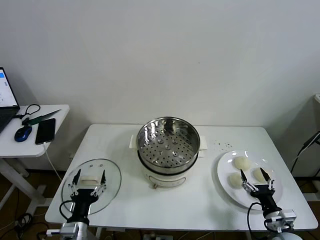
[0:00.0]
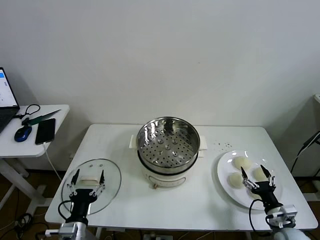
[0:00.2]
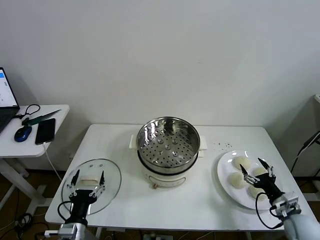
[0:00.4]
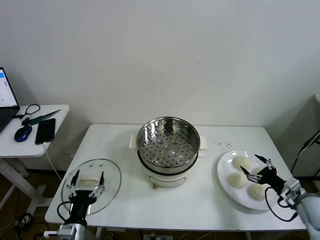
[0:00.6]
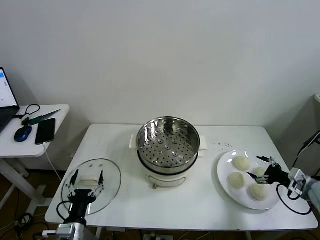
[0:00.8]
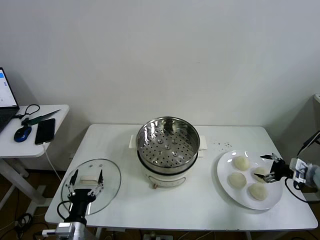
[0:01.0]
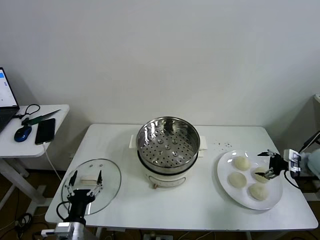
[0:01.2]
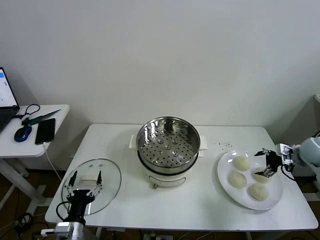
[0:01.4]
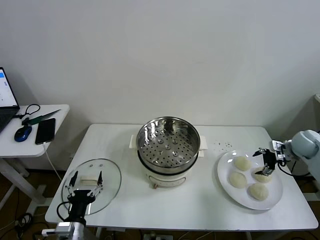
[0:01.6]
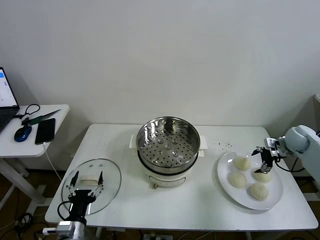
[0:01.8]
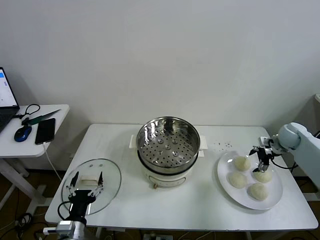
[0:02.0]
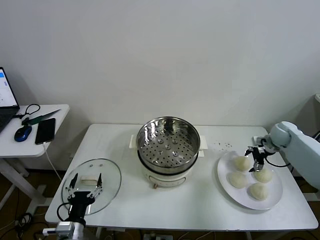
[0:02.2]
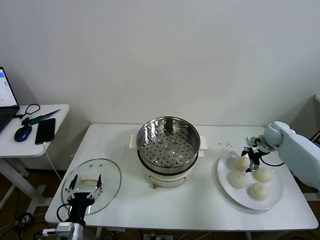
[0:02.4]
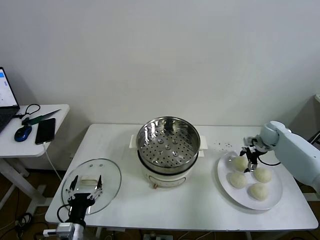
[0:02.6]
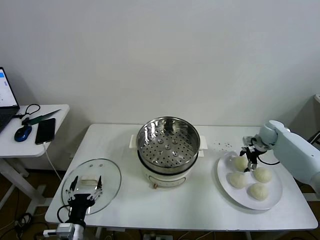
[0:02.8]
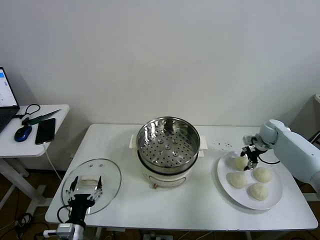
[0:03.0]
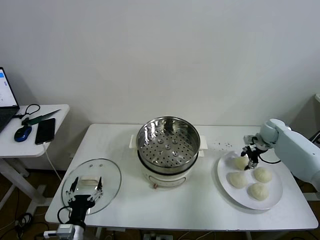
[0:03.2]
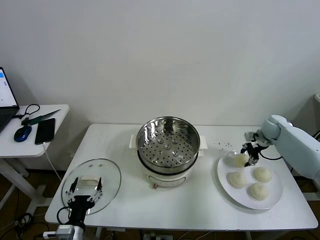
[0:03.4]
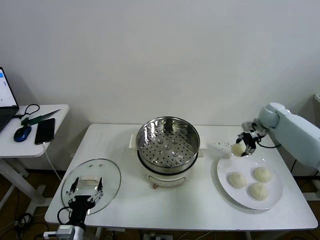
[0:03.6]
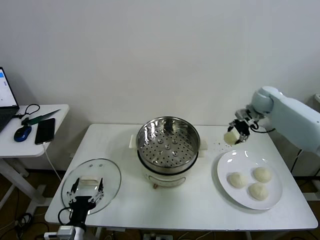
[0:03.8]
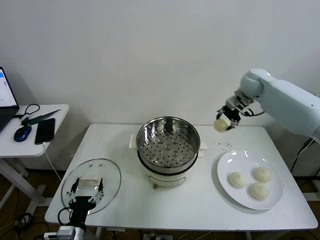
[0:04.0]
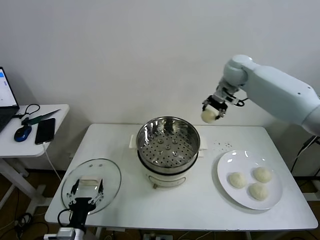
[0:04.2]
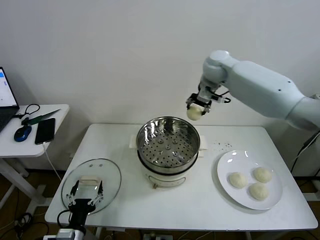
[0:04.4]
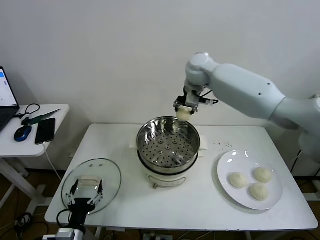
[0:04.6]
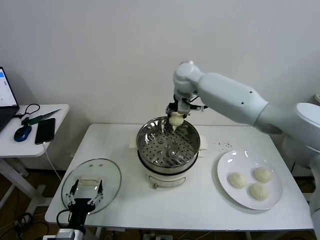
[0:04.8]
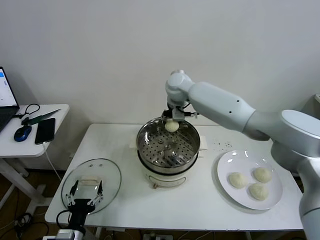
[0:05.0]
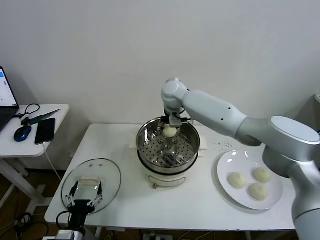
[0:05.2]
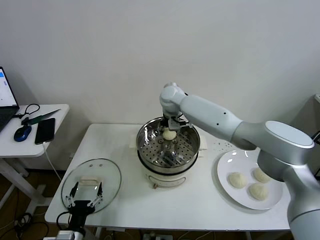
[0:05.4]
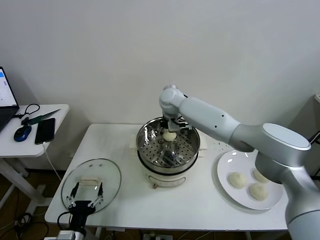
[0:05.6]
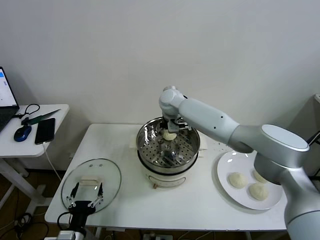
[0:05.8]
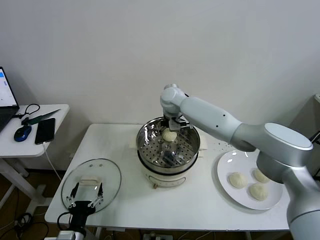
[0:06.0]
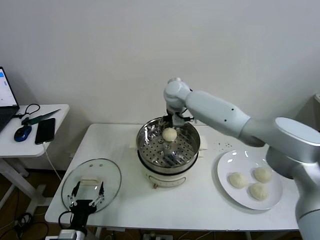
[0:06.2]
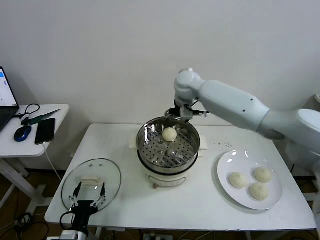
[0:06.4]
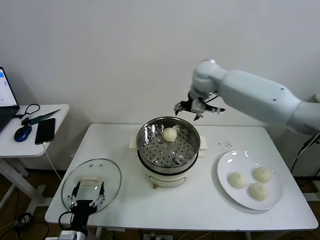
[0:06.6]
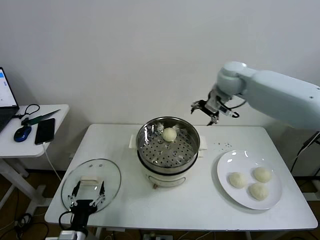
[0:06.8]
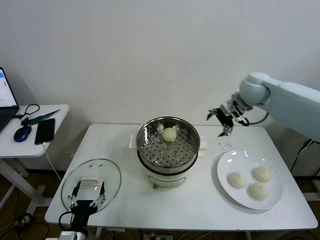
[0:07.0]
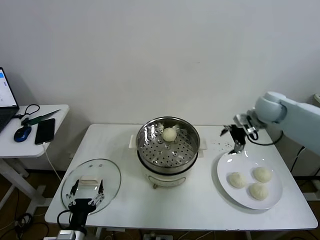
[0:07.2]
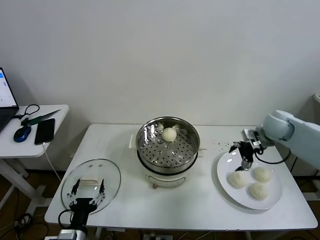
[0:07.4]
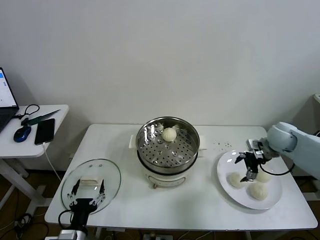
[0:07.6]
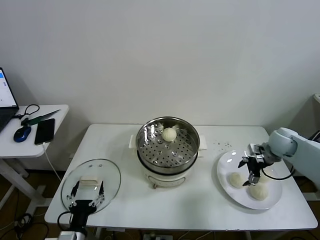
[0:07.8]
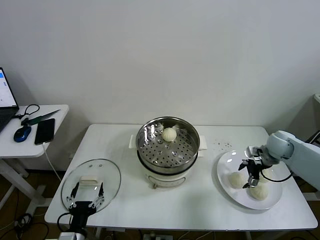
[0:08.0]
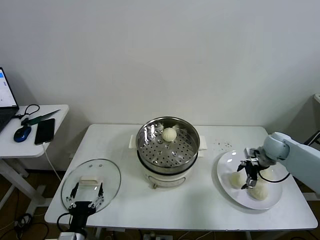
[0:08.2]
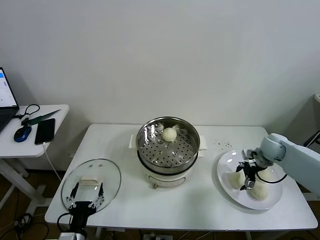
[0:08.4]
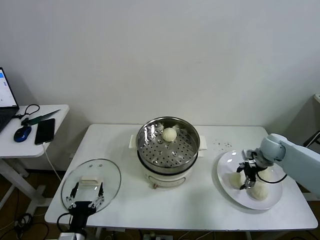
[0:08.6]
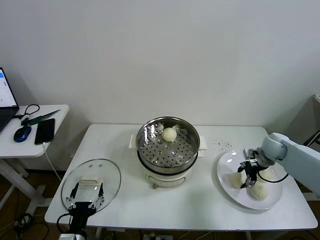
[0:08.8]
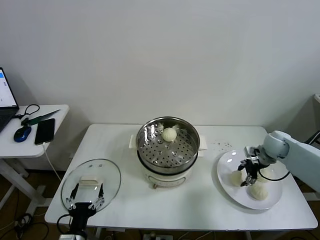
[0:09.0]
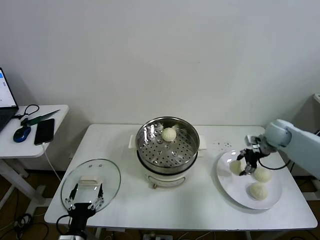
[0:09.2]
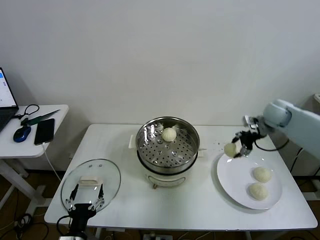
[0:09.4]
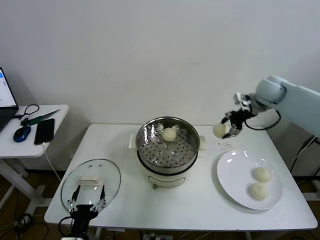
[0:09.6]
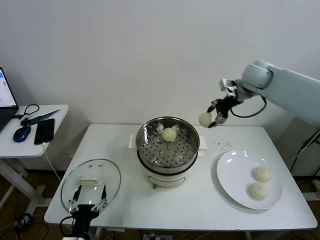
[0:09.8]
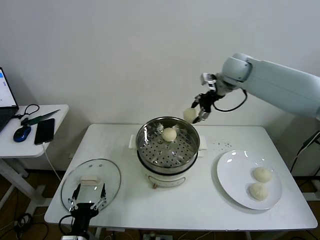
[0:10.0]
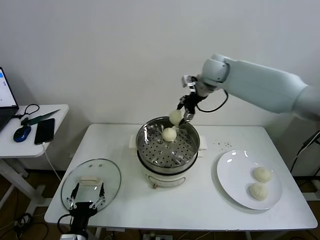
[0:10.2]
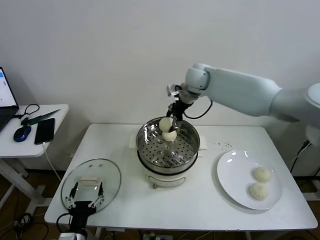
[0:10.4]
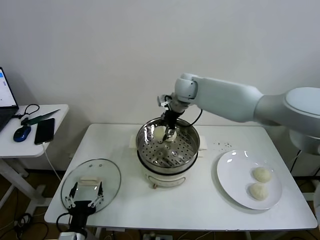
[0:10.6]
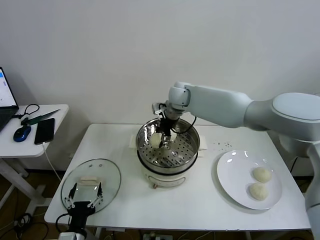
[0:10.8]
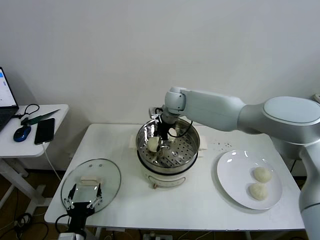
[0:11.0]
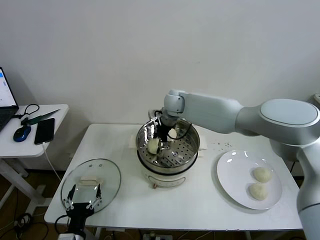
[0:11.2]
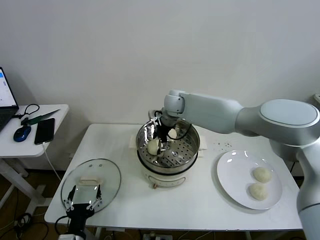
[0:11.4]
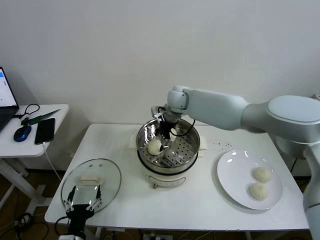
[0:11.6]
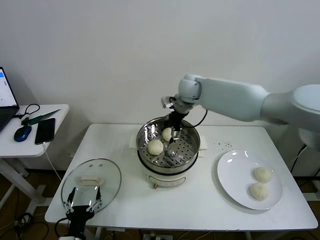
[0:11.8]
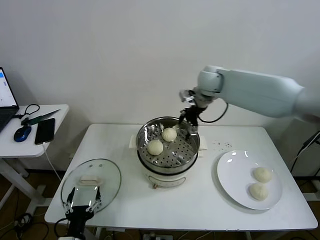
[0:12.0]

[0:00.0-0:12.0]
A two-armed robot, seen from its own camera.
Task of the whole recording: take steamed baozi put them in steamer then cover it.
Step, 0.0 to 3.0 s: Grasp the baozi in the plate with right gripper.
Step, 3.2 to 5.8 s: Place the baozi on the steamer with right gripper.
Step, 6.0 to 8.6 s: Grasp the baozi in the plate with right gripper.
Step, 8.8 to 11.4 s: Place the baozi on the steamer with right gripper.
1.6 to 3.0 s: The right gripper shifts roughly 10 cm forward and to the left, and closes.
3.0 to 4.4 s: The right gripper heads to the left and upward, covering some 40 cm.
4.4 to 6.0 s: The right gripper is displaced downward and to the left by roughly 15 cm, and opens up.
6.0 to 7.6 s: The right gripper shifts approximately 40 cm to the right.
7.6 to 9.0 s: The right gripper closes up.
9.0 to 10.4 s: The right gripper heads to the left and upward, covering about 35 cm.
10.4 to 12.0 s: The right gripper goes some 10 cm to the right, and opens.

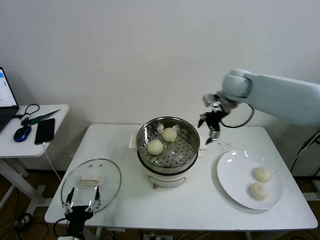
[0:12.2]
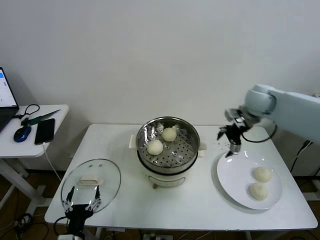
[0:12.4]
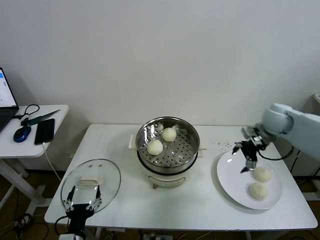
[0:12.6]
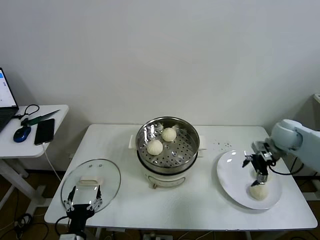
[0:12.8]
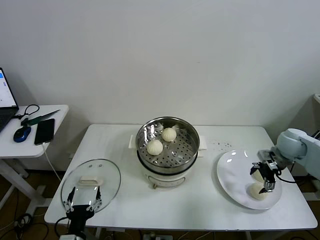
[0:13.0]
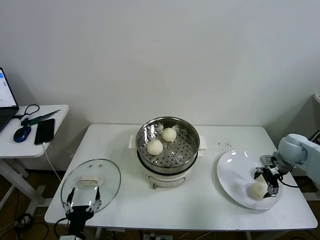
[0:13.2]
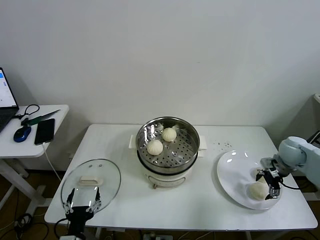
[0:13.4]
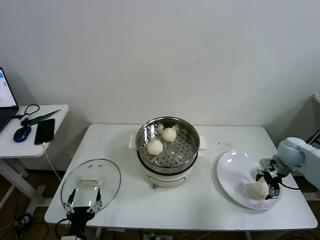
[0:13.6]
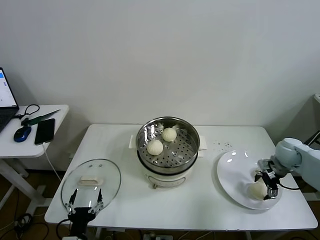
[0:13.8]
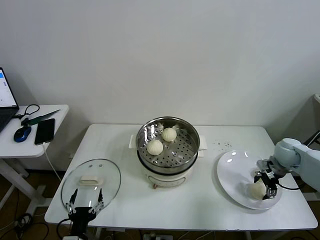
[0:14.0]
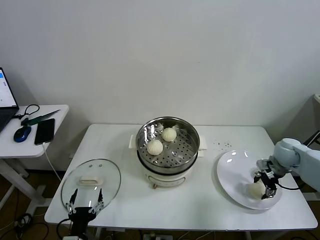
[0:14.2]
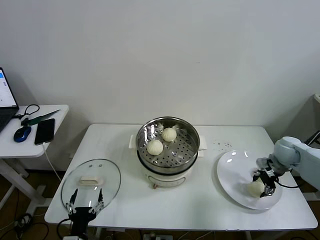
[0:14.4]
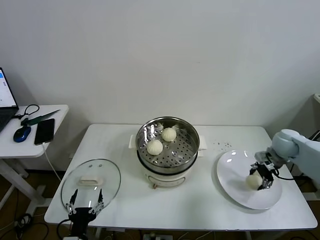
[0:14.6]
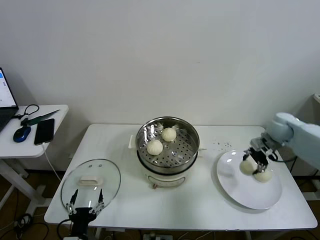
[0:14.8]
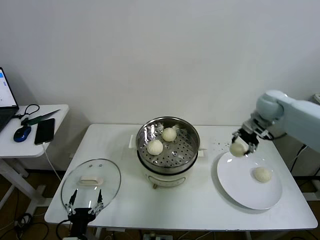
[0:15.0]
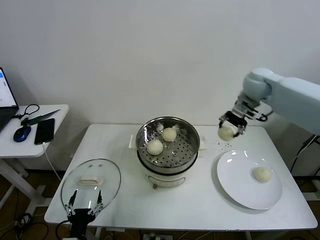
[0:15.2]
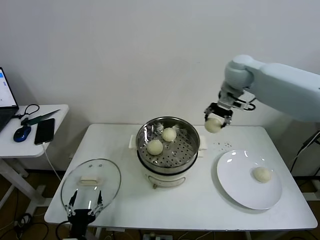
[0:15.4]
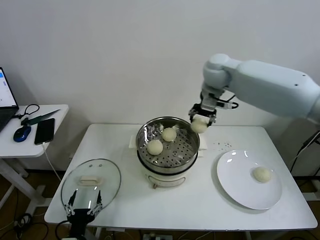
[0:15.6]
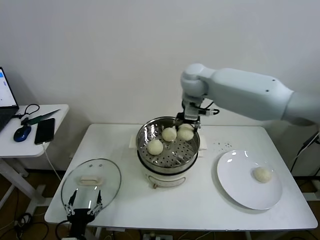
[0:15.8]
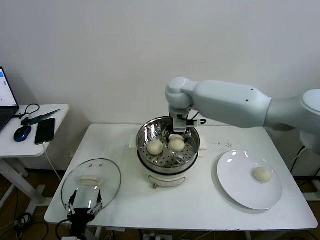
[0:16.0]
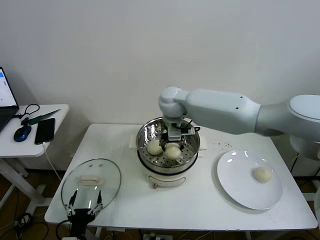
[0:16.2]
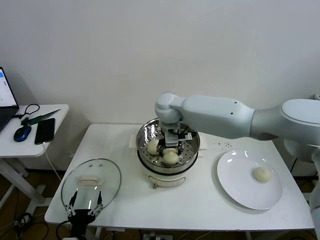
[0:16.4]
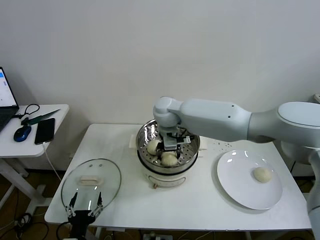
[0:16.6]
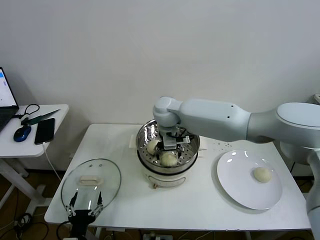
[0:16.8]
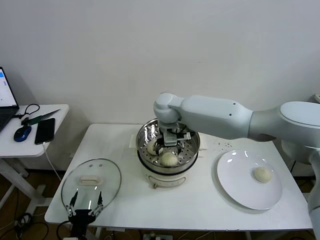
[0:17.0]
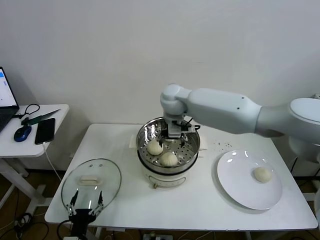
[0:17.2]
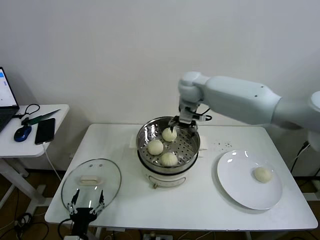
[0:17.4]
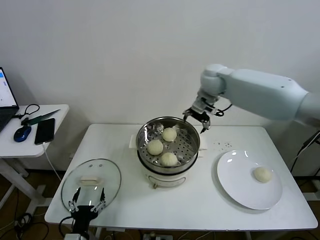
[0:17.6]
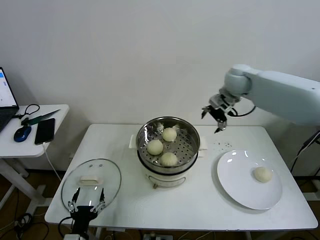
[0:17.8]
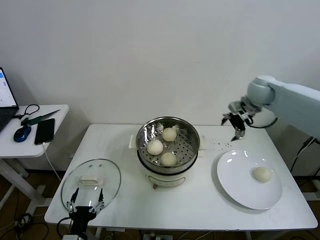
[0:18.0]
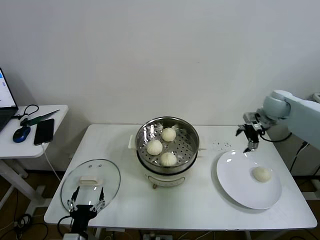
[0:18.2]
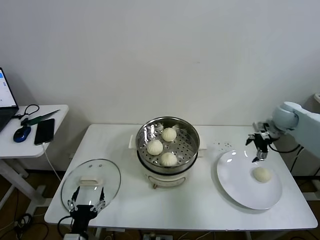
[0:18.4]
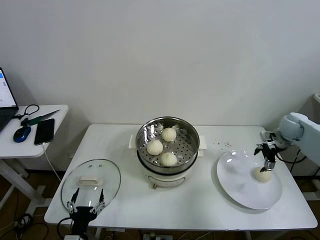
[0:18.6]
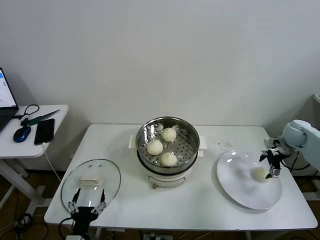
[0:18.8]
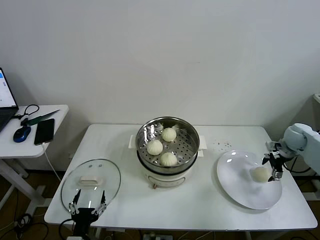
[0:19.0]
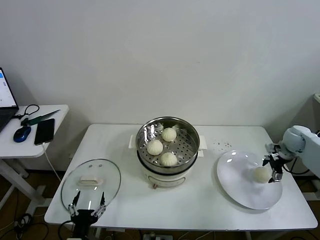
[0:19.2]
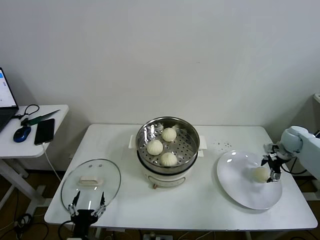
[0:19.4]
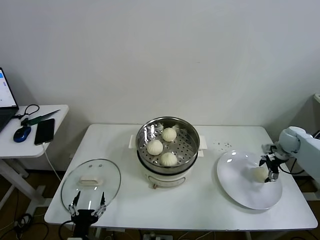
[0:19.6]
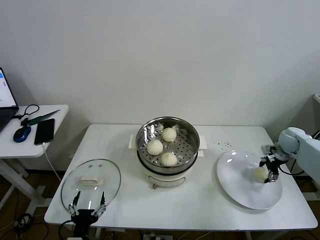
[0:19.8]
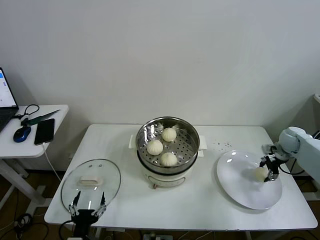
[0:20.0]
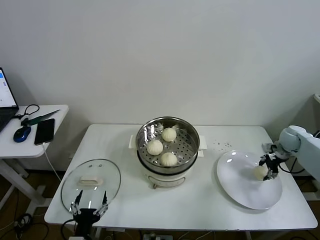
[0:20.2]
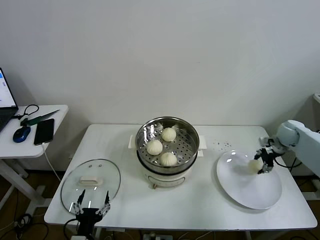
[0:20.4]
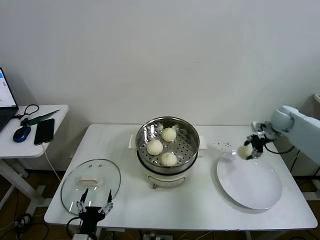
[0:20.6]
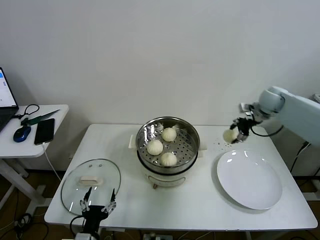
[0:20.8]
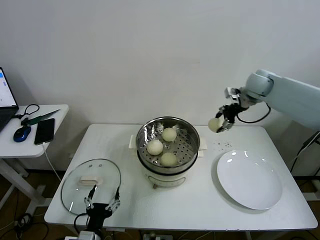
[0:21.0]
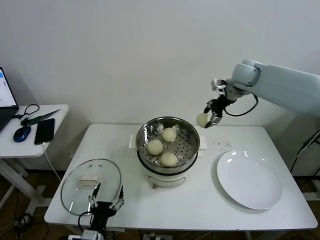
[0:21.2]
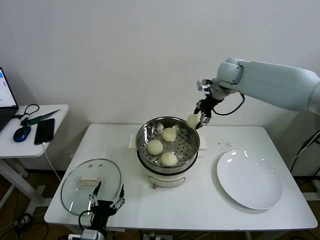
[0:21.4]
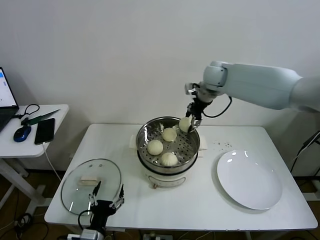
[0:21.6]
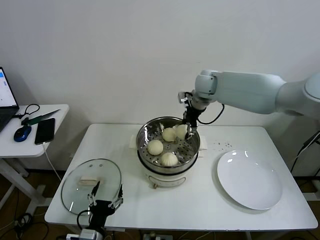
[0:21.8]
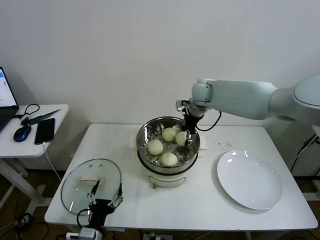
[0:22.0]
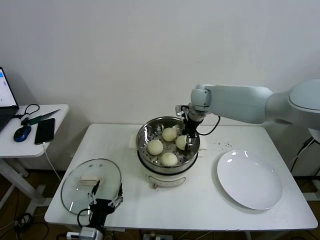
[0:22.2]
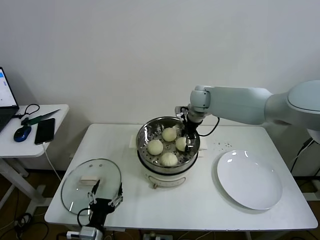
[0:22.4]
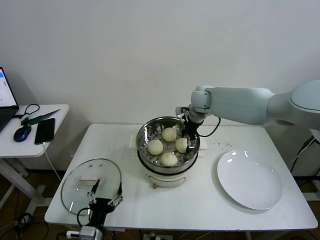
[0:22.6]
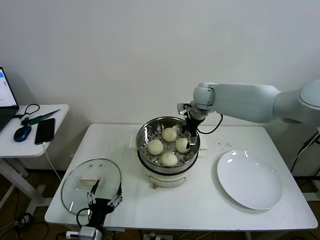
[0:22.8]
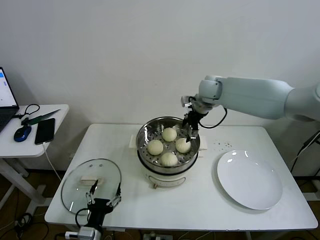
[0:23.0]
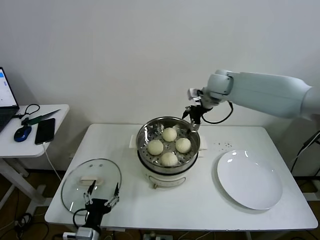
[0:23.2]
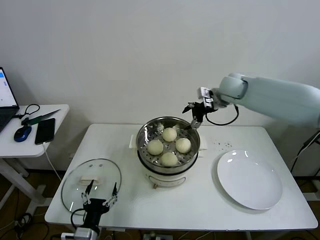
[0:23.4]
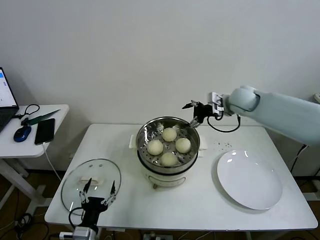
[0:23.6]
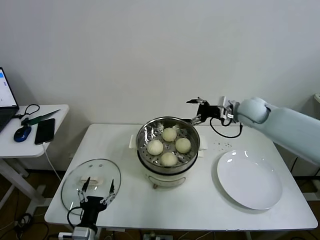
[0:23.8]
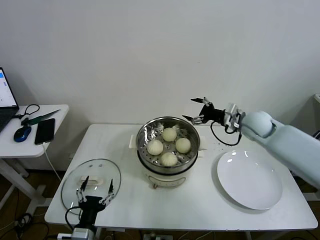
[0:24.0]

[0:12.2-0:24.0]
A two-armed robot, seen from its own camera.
Task of the whole recording: take steamed baozi put them in steamer then cover it.
Step, 12.2 to 14.2 s: Grasp the baozi in the plate with right gripper.
Step, 14.4 to 16.6 s: Place the baozi on the steamer with right gripper.
Step, 17.0 to 20.0 s: Grasp the baozi in the plate with right gripper.
Step, 20.2 to 22.4 s: Place the baozi on the steamer with right gripper.
12.2 to 13.6 s: The right gripper shifts some 30 cm downward, to the right and backward.
13.6 to 15.2 s: The right gripper shifts roughly 30 cm upward, to the left and forward, and closes its fingers.
15.2 to 16.6 s: The right gripper shifts roughly 30 cm to the left.
16.6 to 18.2 s: The right gripper is displaced to the right by approximately 40 cm, and opens.
18.2 to 19.6 s: The right gripper moves downward and to the right, roughly 15 cm.
19.6 to 21.0 s: The right gripper goes some 30 cm upward, to the left and forward, and closes its fingers.
21.0 to 22.6 s: The right gripper heads to the left, covering roughly 20 cm, and opens.
22.6 to 24.0 s: The right gripper heads to the right and backward, covering about 20 cm.
